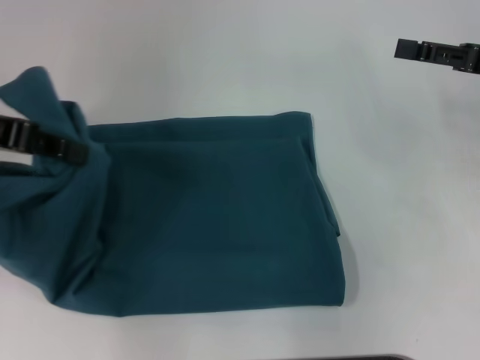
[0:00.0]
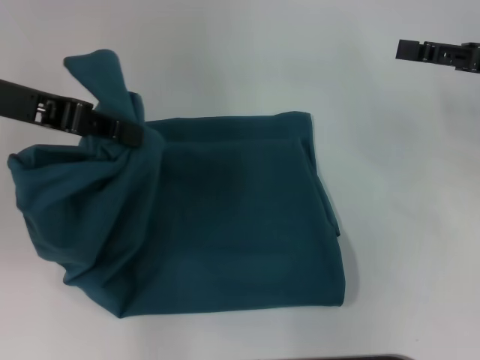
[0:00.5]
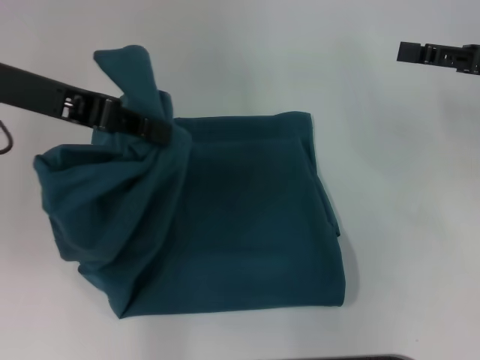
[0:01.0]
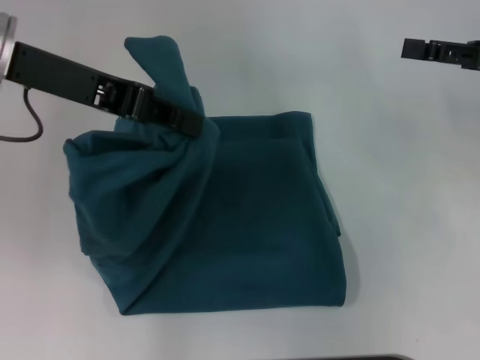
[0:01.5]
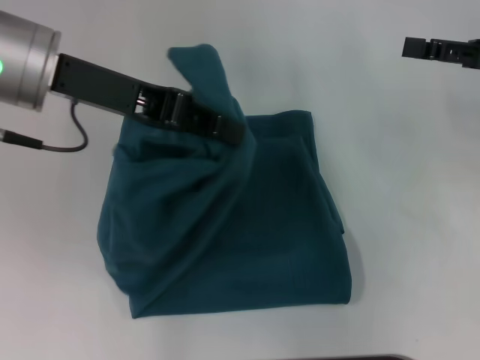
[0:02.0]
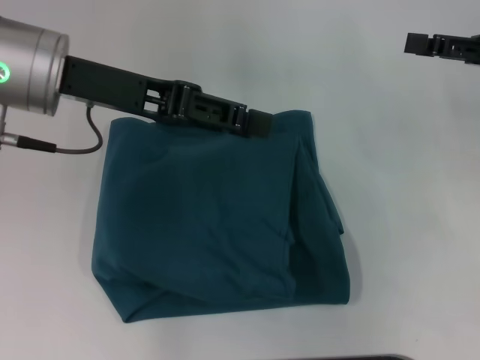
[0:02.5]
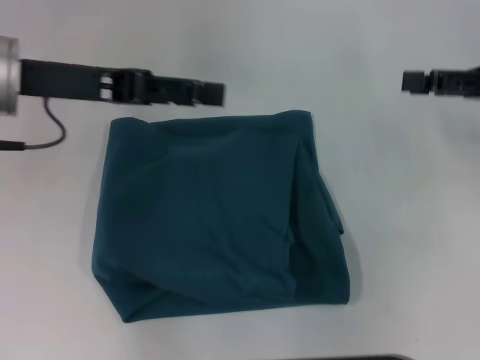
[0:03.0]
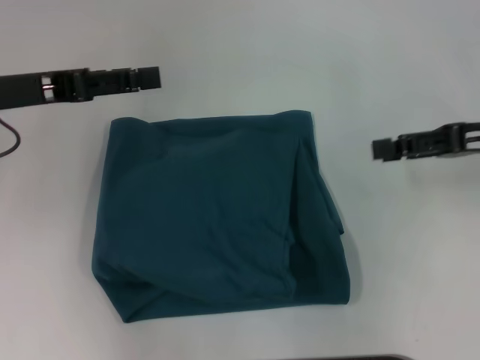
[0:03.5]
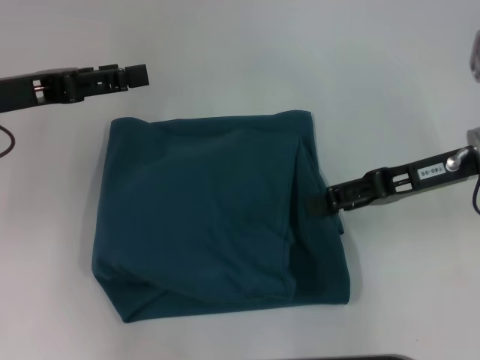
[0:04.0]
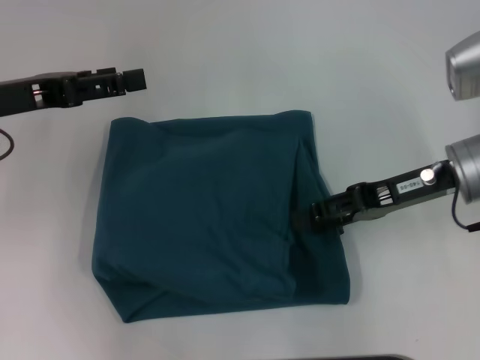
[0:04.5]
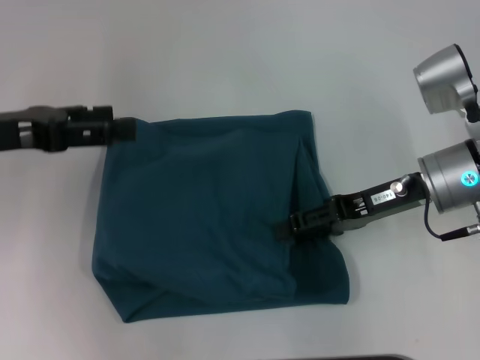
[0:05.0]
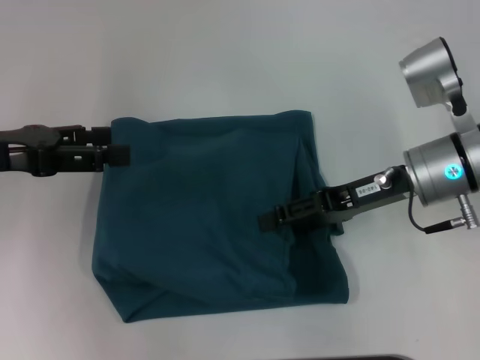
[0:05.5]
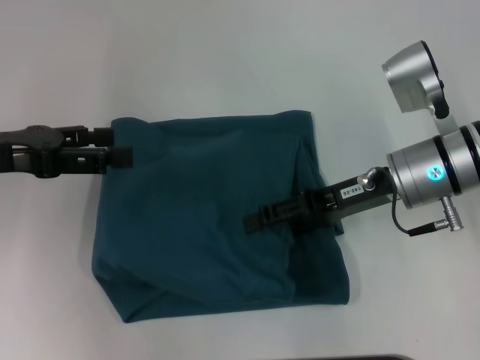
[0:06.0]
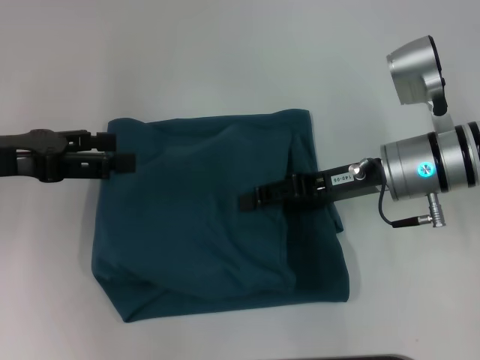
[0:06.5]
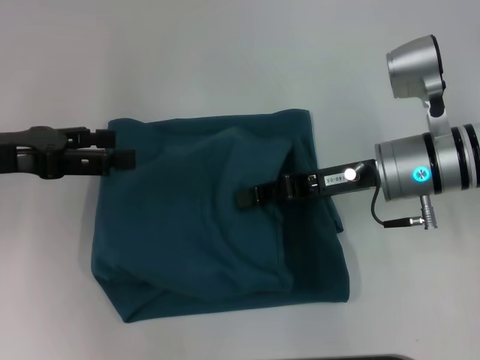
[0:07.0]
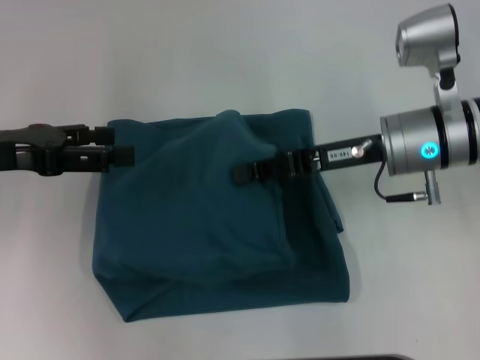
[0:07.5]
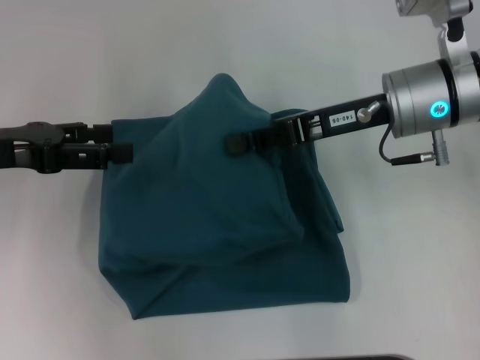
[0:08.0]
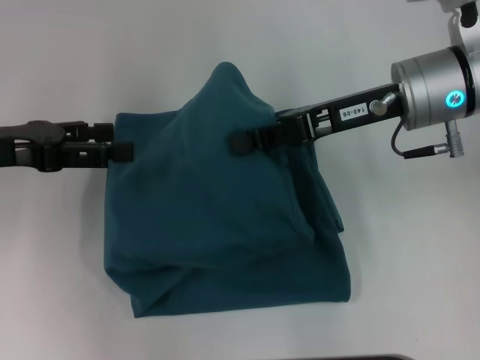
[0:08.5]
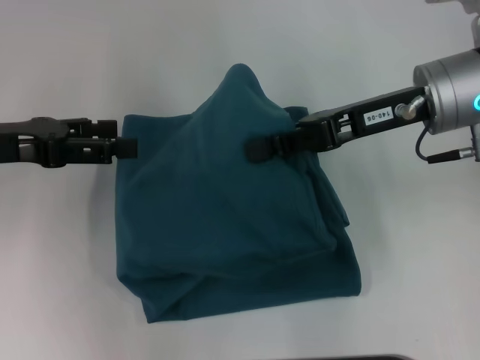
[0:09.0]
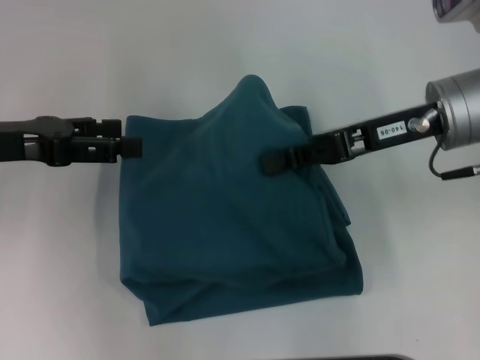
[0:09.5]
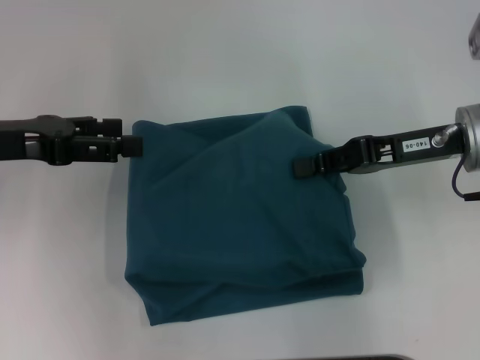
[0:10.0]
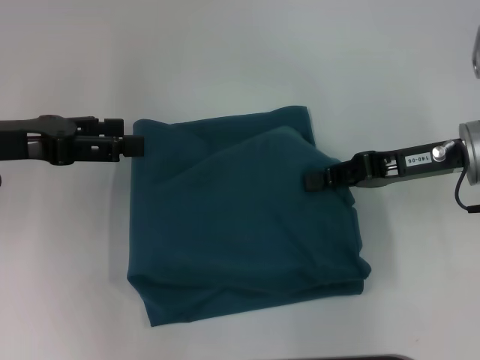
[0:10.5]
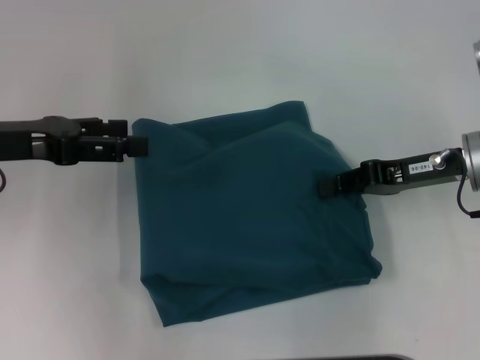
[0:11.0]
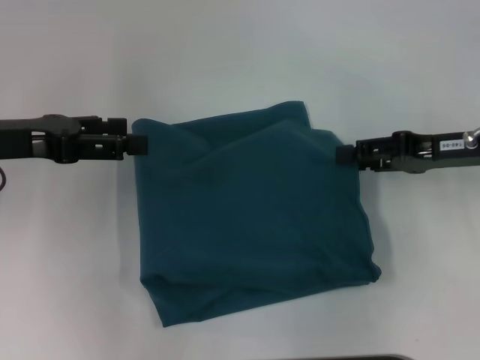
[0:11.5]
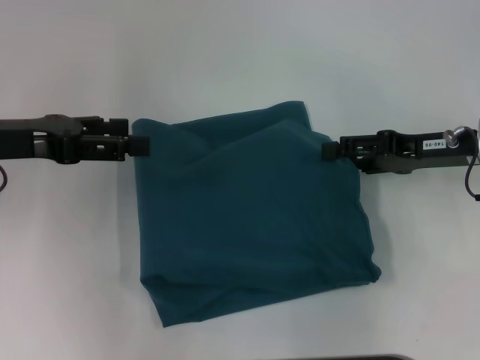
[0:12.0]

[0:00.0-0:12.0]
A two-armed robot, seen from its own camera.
Step, 0:00.0 to 0:02.5: Fold the clothes to the left.
0:00.0 to 0:02.0: The left gripper moves to the right, approximately 10 cm.
0:02.0 to 0:04.0: The left gripper travels to the left and downward by approximately 10 cm, and opens. The right gripper goes about 10 cm to the left.
0:04.0 to 0:06.0: The right gripper is displaced to the left by approximately 5 cm.
0:06.0 to 0:08.0: The right gripper is displaced upward by about 5 cm, and closes its fingers.
0:08.0 to 0:10.0: The right gripper is displaced to the right by approximately 5 cm.
0:10.0 to 0:12.0: The right gripper changes place by about 5 cm, and opens its fingers.

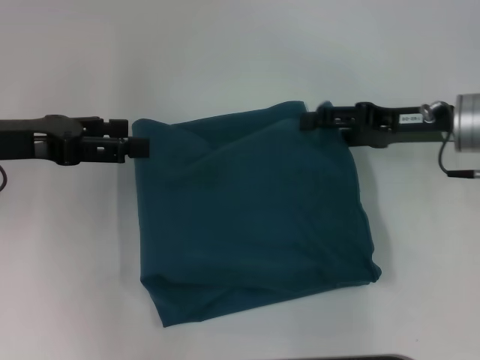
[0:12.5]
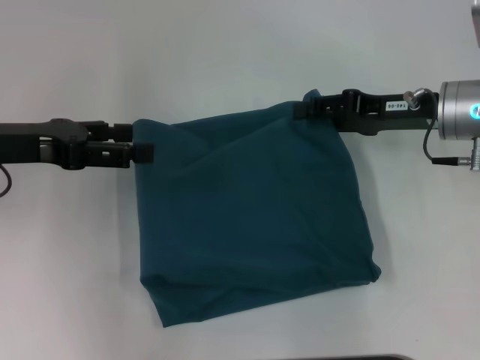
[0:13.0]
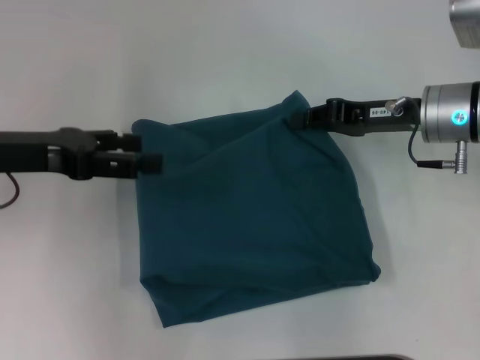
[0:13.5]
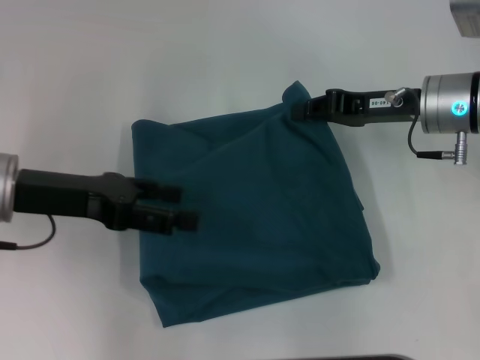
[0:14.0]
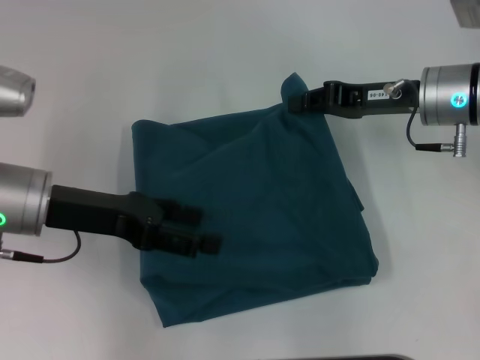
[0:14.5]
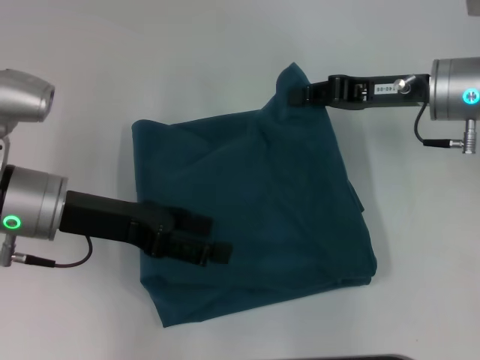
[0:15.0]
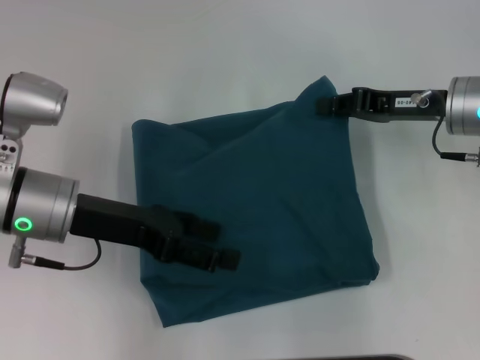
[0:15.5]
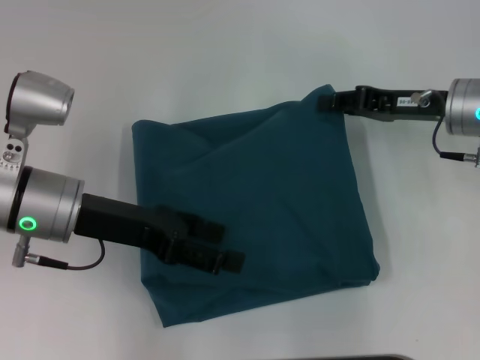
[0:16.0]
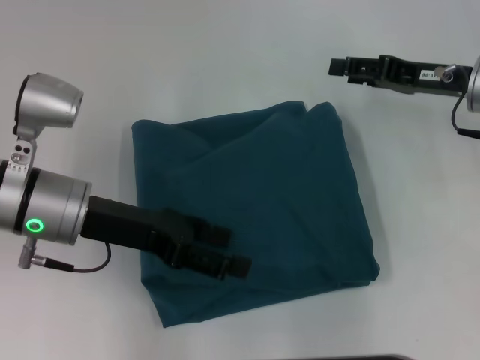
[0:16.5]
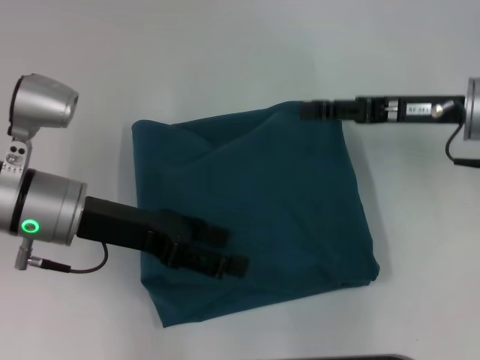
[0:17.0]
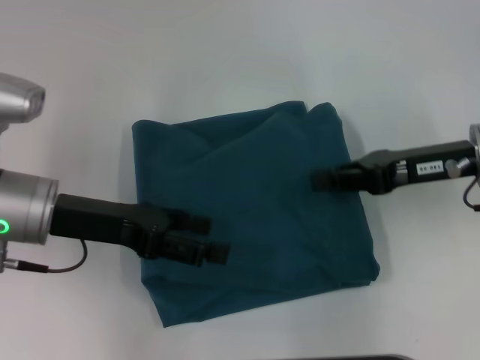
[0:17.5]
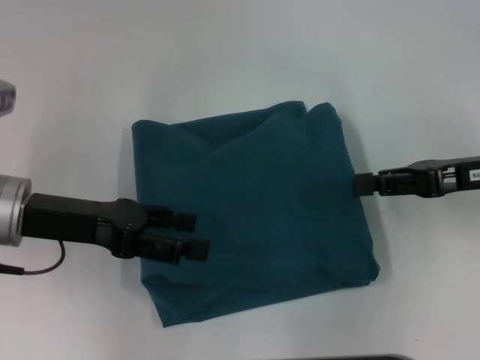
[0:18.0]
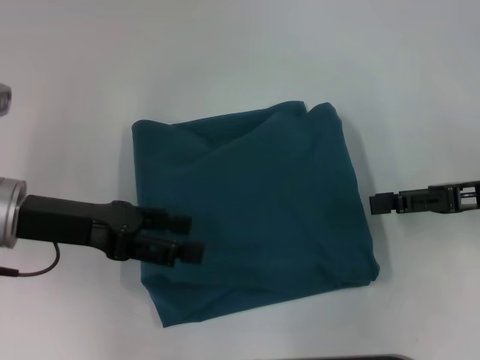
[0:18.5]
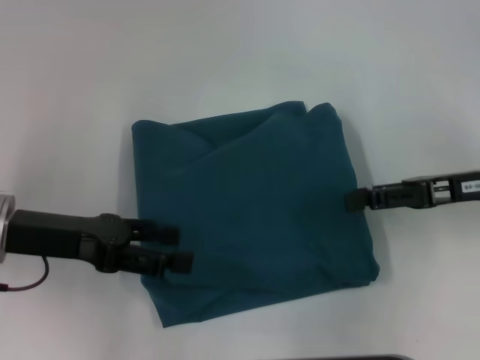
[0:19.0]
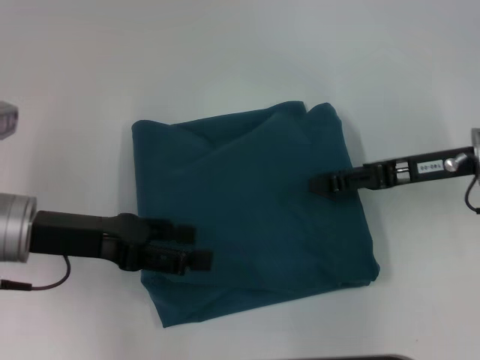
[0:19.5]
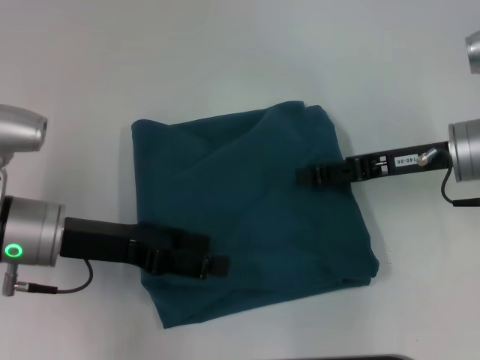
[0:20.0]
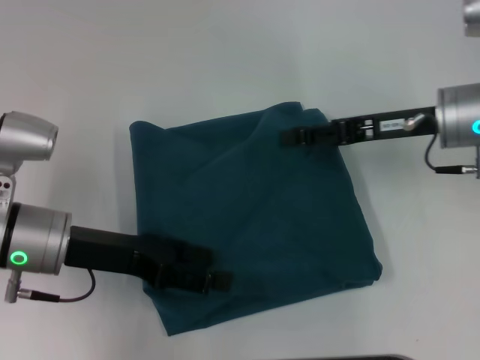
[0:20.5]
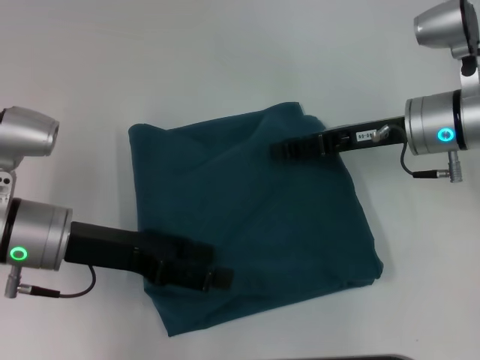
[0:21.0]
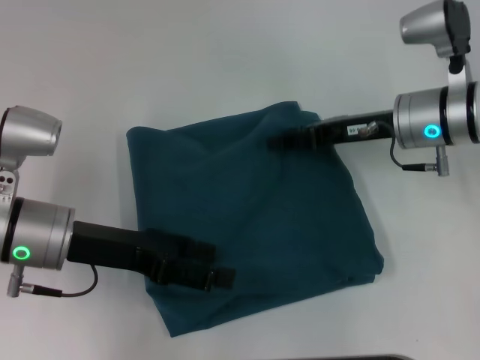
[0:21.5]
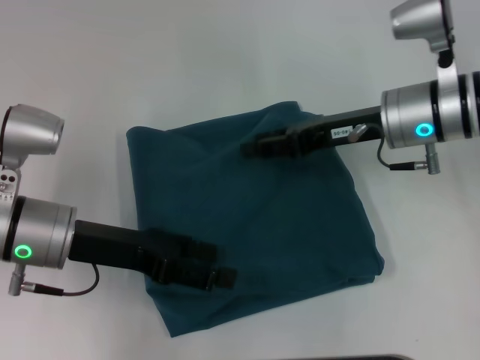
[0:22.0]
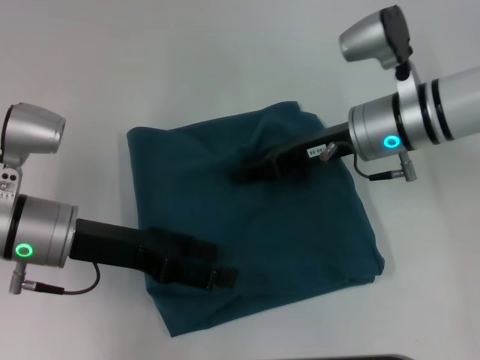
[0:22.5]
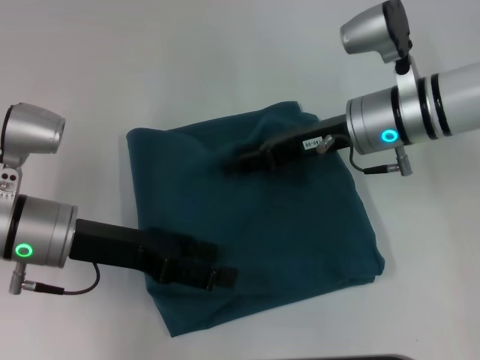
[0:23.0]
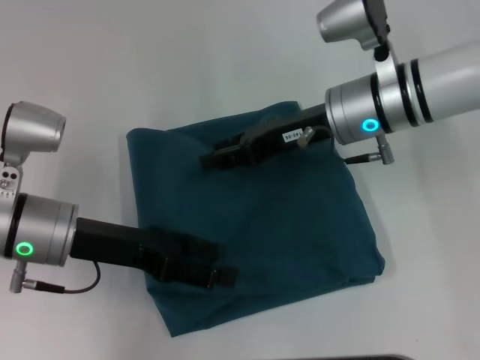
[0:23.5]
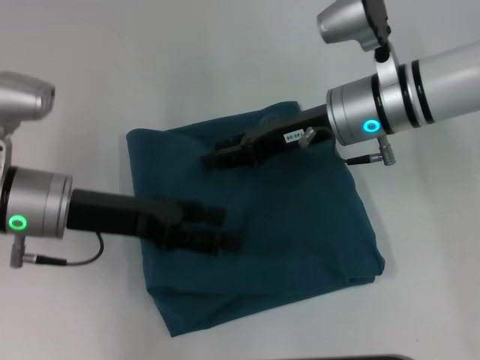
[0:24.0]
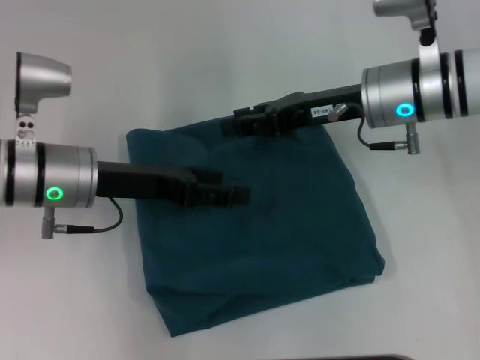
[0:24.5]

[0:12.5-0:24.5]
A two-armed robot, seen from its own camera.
0:12.5 to 0:14.5: The right gripper closes its fingers; the left gripper heads to the right, covering roughly 5 cm.
0:14.5 to 0:16.5: The right gripper opens.
0:16.5 to 0:18.5: The left gripper ends up about 5 cm from where it was. The right gripper moves backward, roughly 10 cm, and closes, then reopens.
0:18.5 to 0:20.5: The right gripper travels to the left and forward by approximately 10 cm.
0:20.5 to 0:22.5: The right gripper goes approximately 5 cm to the left.

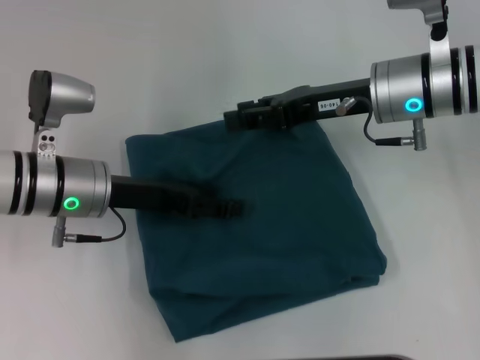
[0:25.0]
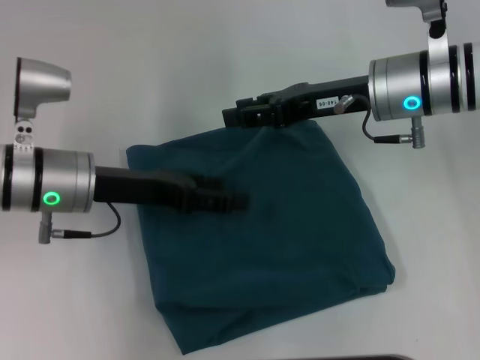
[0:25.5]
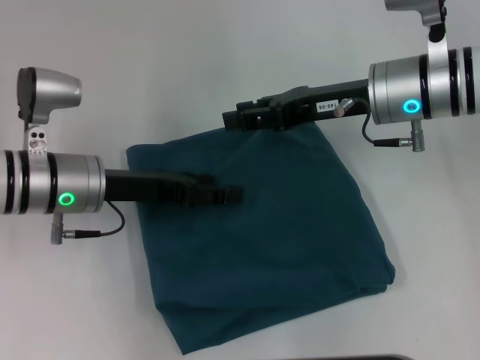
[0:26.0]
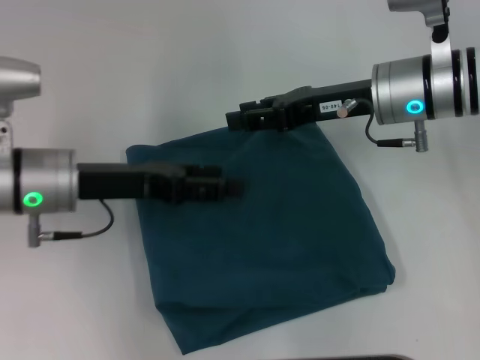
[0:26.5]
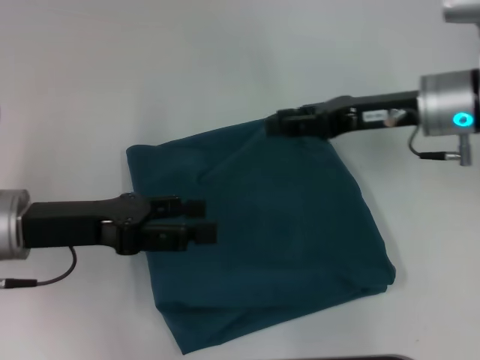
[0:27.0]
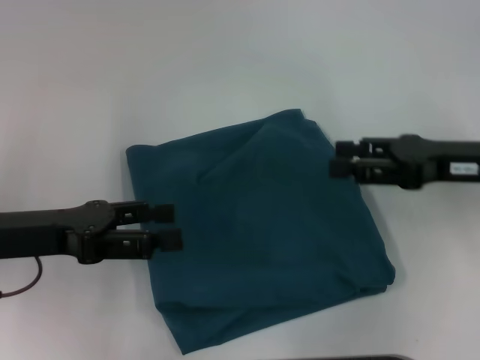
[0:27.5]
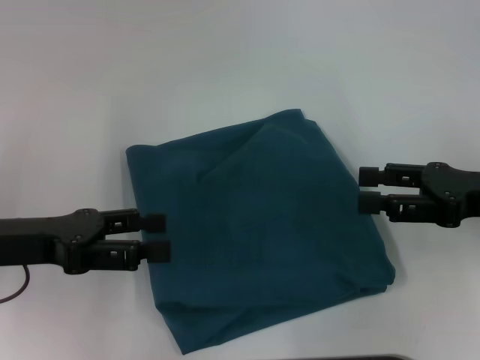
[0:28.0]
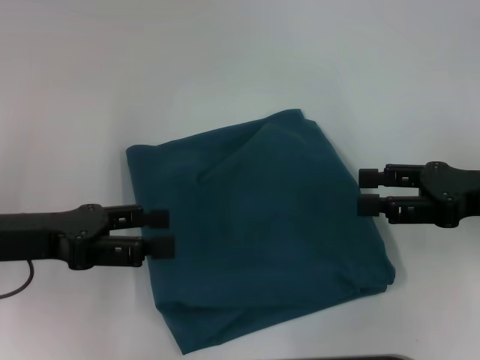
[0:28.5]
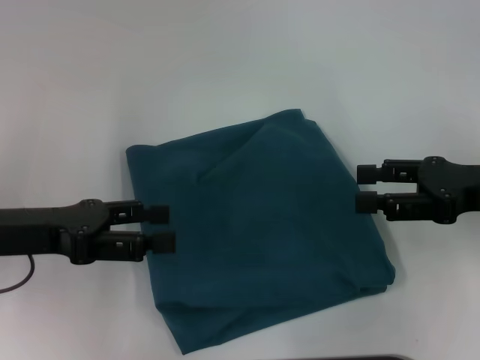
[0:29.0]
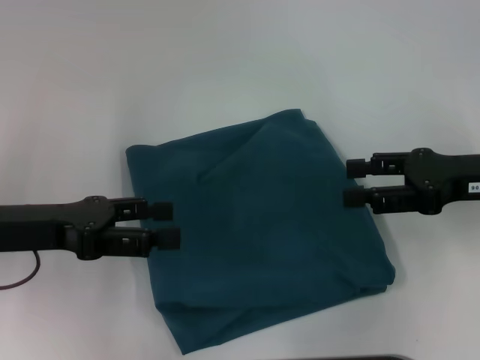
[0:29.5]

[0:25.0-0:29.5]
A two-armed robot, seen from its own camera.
0:25.0 to 0:27.0: The left gripper is displaced backward and to the left by approximately 10 cm.
0:27.0 to 0:29.5: The right gripper travels backward and to the right by some 10 cm.
